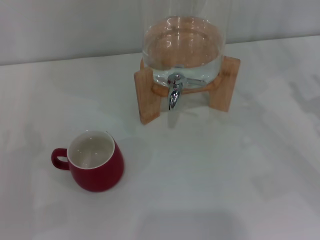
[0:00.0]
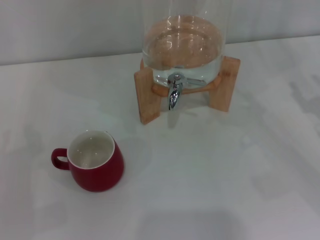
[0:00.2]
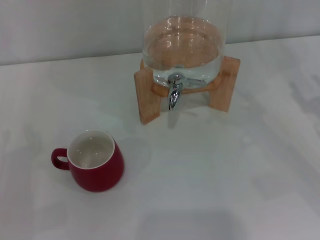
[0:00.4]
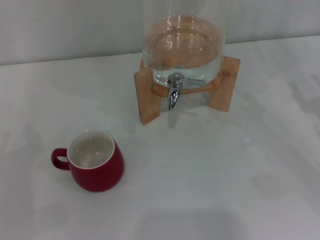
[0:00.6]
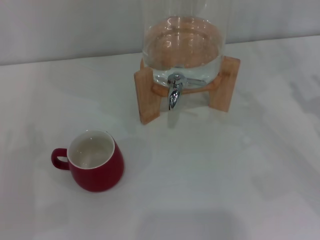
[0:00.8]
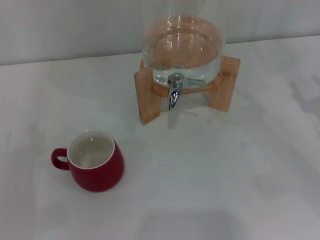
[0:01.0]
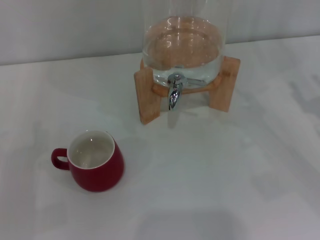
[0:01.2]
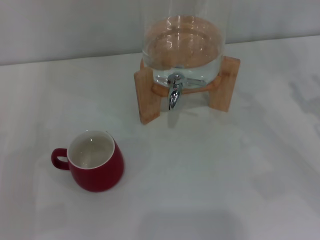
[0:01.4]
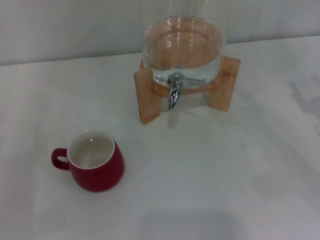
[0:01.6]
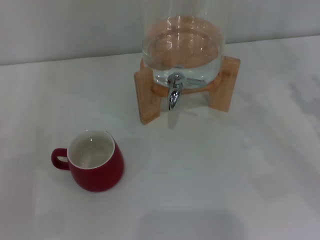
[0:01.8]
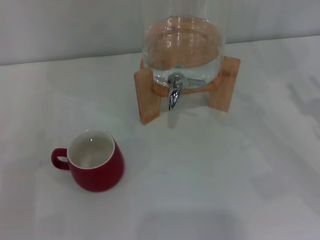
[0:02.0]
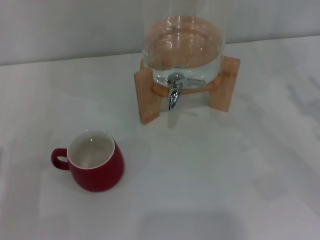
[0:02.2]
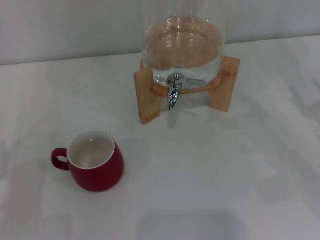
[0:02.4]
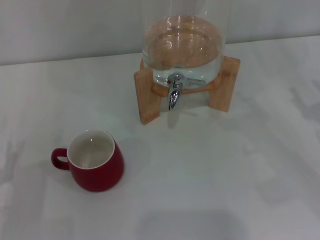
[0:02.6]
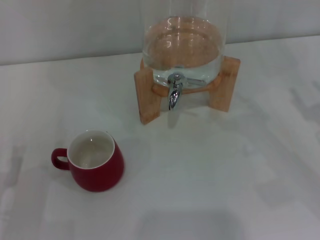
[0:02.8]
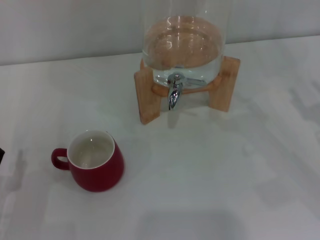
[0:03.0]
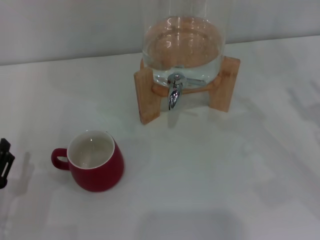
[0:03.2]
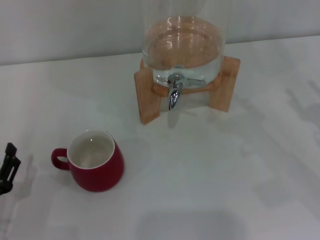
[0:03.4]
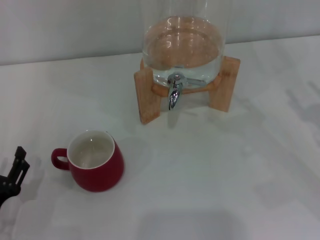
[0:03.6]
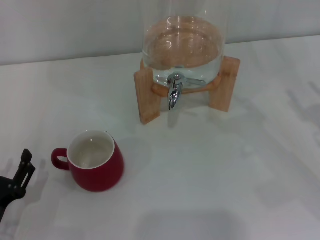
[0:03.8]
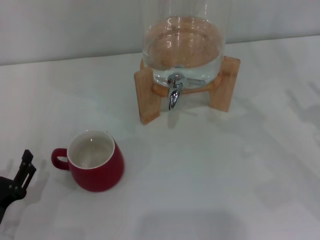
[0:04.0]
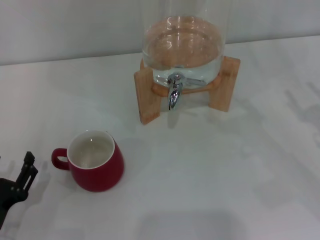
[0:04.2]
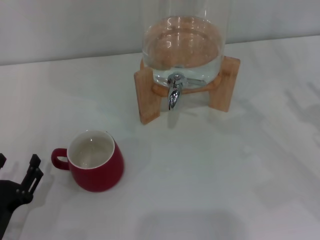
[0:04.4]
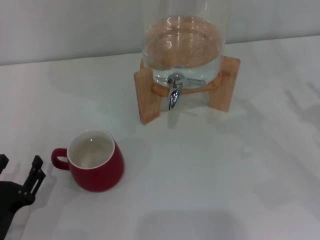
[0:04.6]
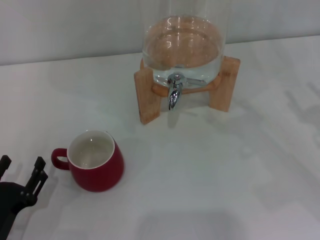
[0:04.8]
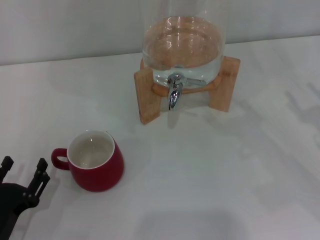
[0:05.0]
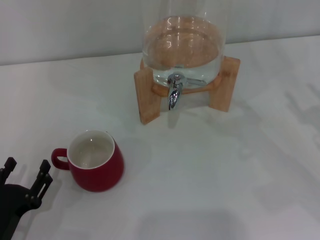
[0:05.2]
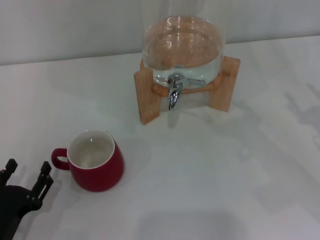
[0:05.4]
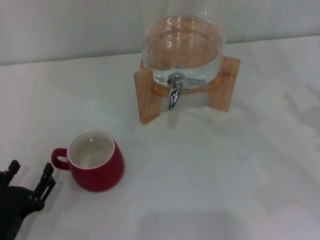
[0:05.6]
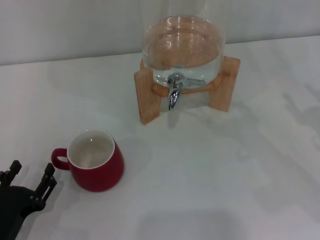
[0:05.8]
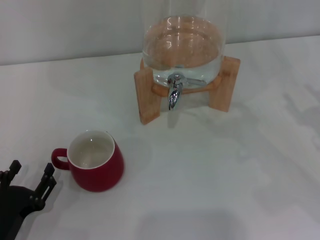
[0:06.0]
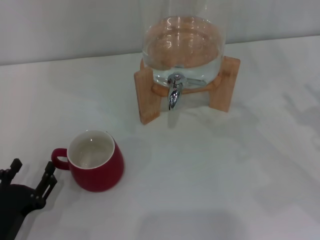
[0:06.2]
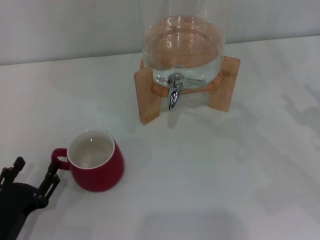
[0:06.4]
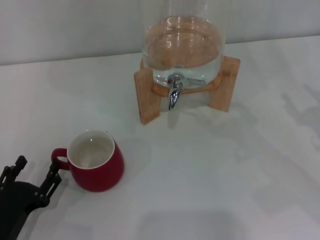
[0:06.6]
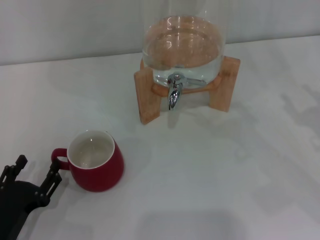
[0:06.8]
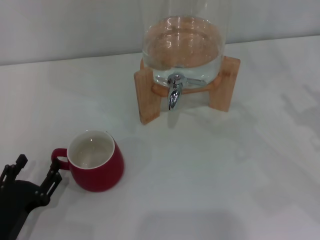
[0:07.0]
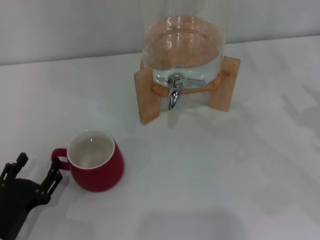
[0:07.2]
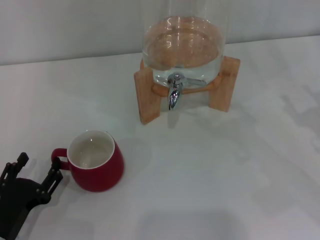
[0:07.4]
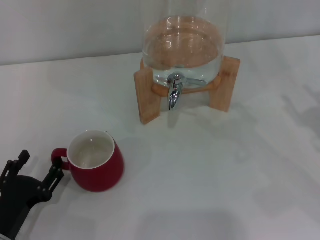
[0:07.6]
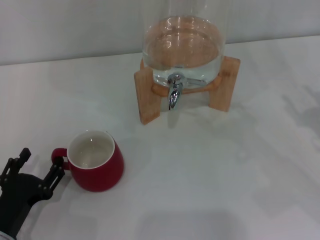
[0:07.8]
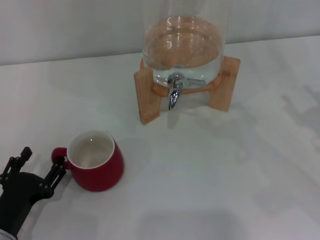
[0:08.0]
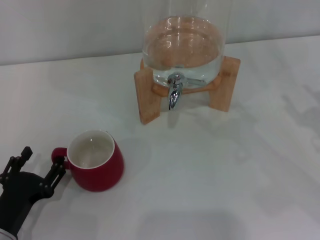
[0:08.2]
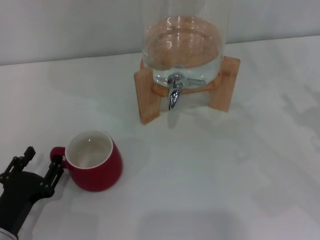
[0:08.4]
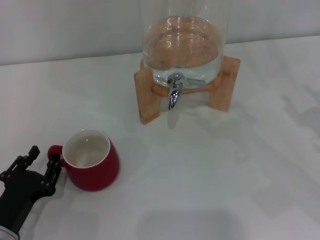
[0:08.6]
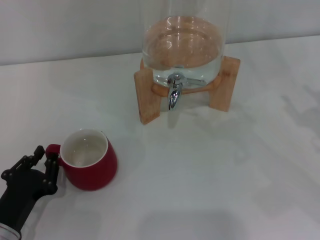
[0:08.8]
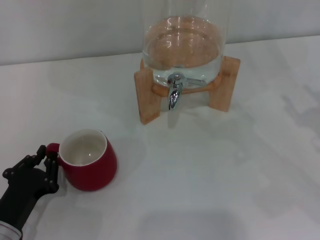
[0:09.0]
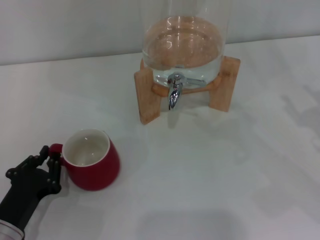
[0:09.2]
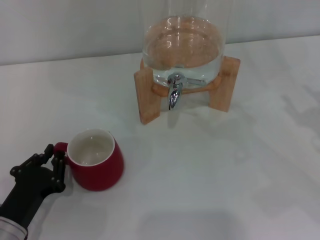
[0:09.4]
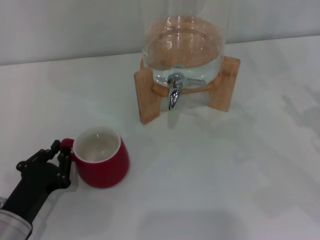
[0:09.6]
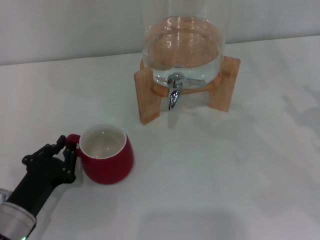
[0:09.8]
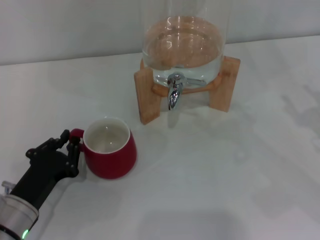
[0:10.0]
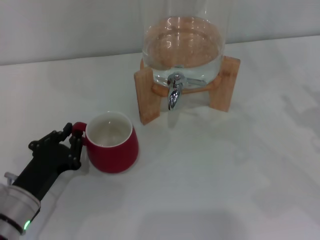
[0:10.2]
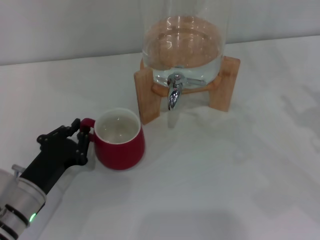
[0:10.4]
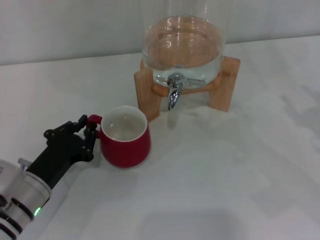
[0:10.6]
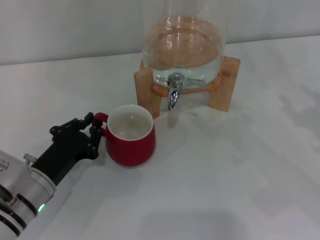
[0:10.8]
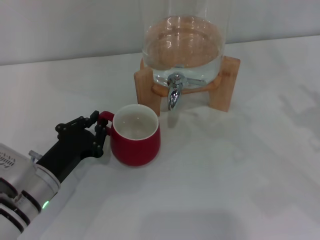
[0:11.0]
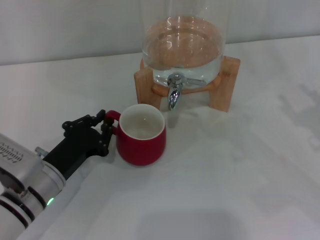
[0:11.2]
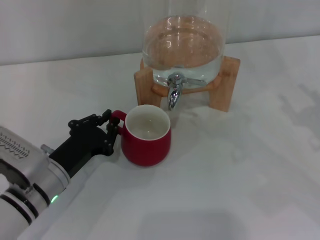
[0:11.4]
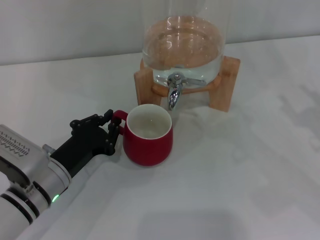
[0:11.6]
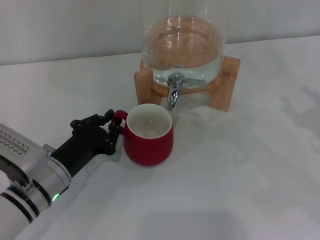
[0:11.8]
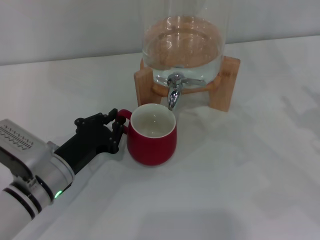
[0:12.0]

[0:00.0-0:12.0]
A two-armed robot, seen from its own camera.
Task of the whole recording: the left gripper pick up the red cup and place it horizontally under the faucet, the right gripper turn on the faucet to fill the cup, and then turn off the faucet.
0:03.0 to 0:07.6: The grippers stay close to where they were, moving slightly.
0:07.6 to 0:09.0: The left gripper closes its fingers.
0:09.0 to 0:10.4: The left gripper moves approximately 5 cm.
0:10.4 to 0:12.0: The left gripper moves about 5 cm.

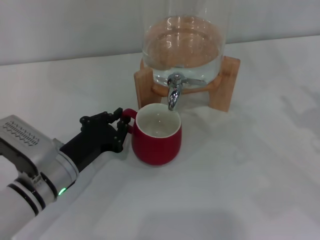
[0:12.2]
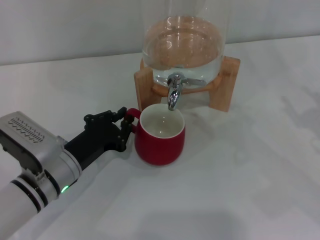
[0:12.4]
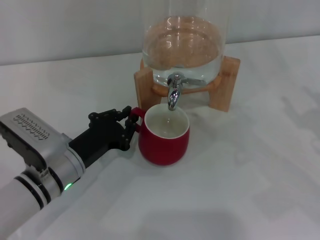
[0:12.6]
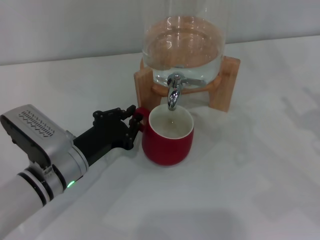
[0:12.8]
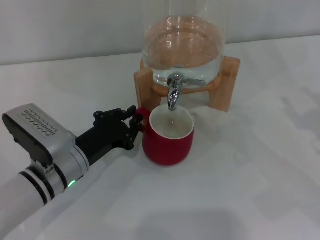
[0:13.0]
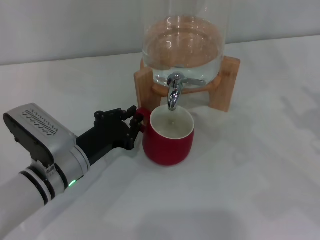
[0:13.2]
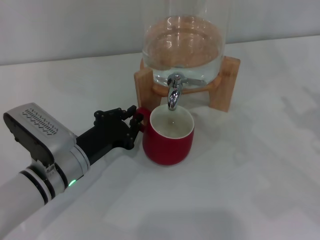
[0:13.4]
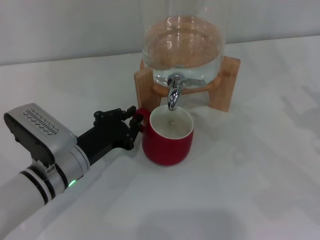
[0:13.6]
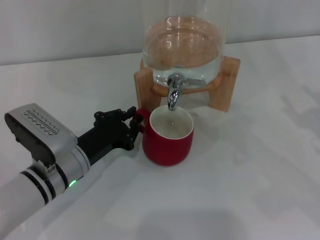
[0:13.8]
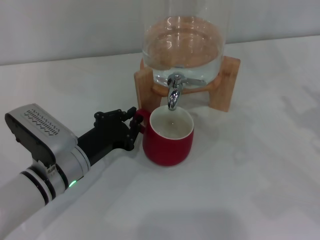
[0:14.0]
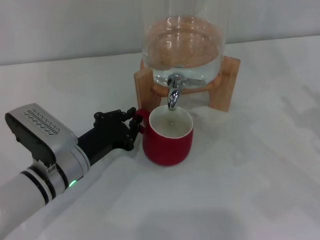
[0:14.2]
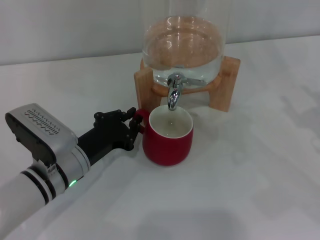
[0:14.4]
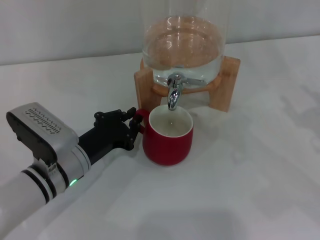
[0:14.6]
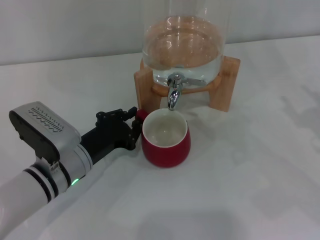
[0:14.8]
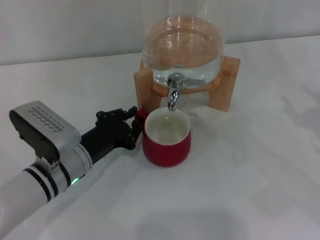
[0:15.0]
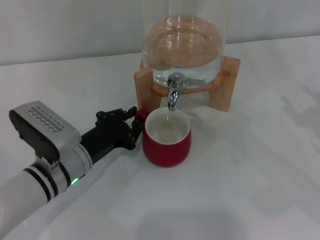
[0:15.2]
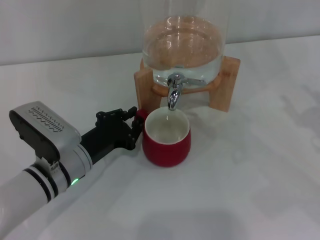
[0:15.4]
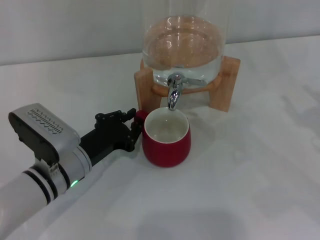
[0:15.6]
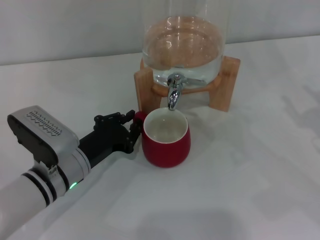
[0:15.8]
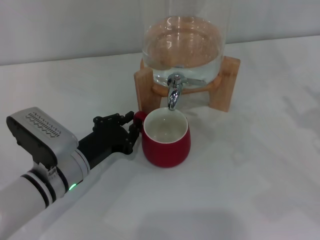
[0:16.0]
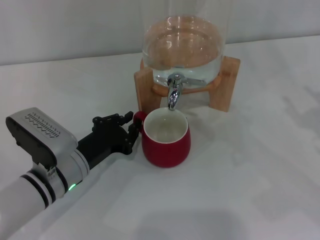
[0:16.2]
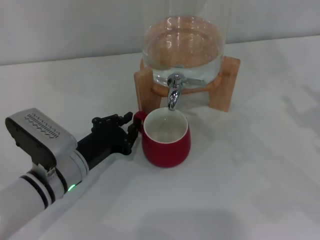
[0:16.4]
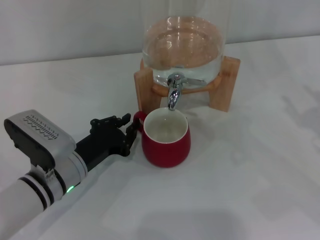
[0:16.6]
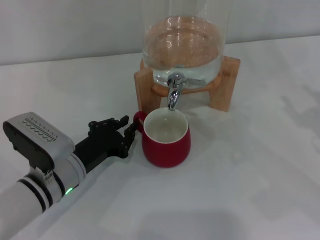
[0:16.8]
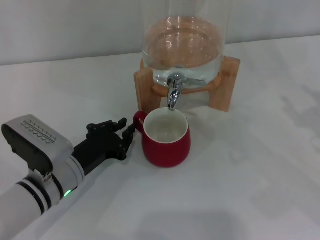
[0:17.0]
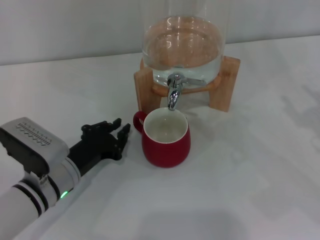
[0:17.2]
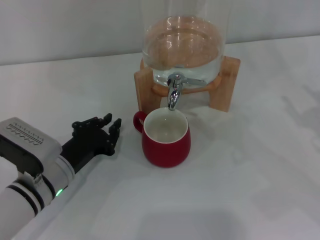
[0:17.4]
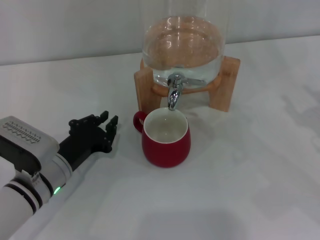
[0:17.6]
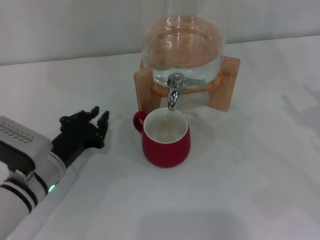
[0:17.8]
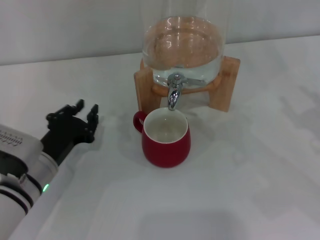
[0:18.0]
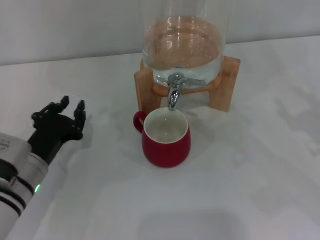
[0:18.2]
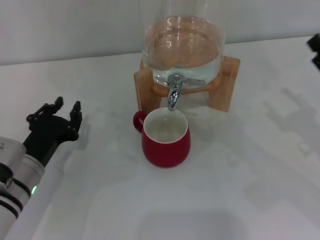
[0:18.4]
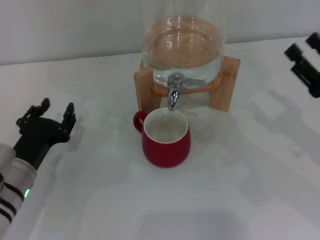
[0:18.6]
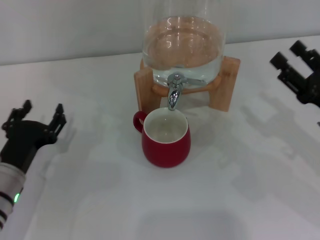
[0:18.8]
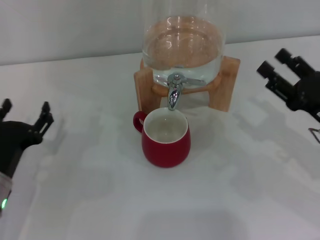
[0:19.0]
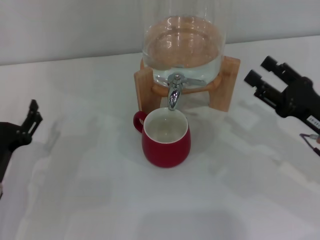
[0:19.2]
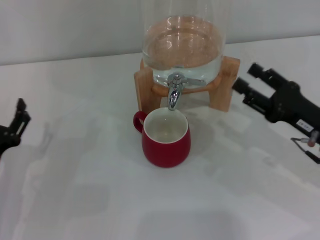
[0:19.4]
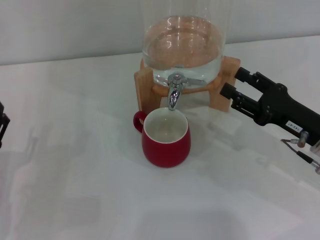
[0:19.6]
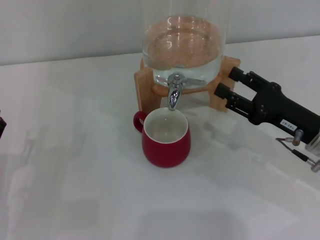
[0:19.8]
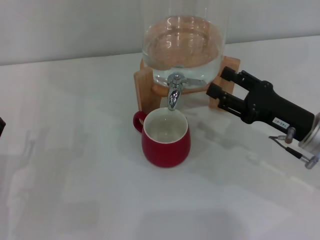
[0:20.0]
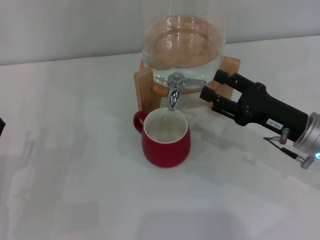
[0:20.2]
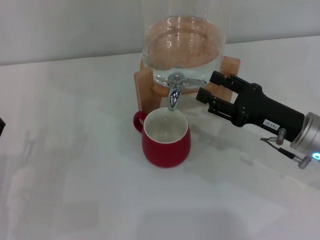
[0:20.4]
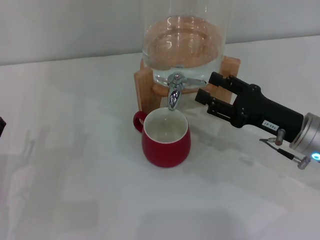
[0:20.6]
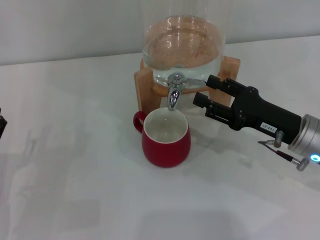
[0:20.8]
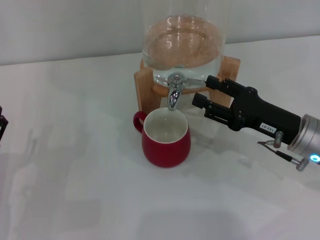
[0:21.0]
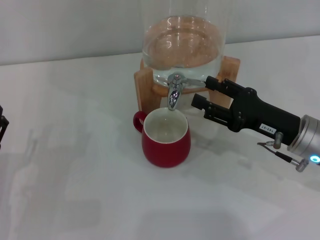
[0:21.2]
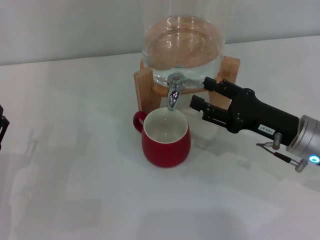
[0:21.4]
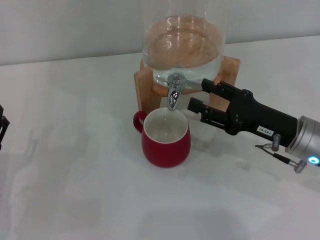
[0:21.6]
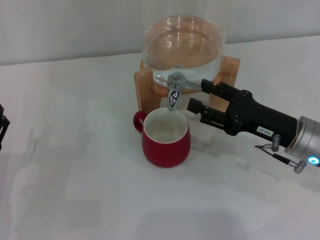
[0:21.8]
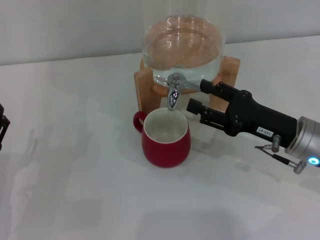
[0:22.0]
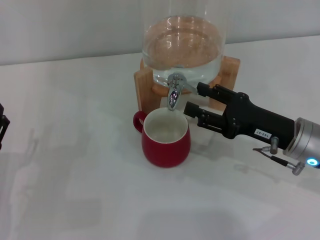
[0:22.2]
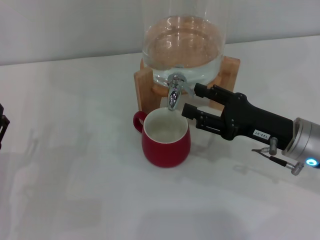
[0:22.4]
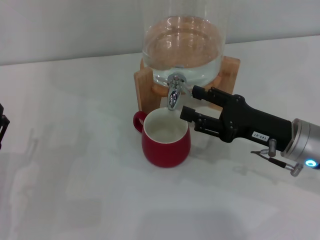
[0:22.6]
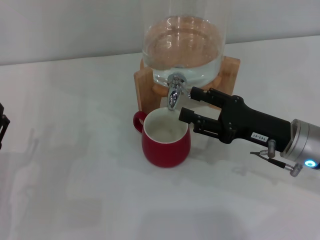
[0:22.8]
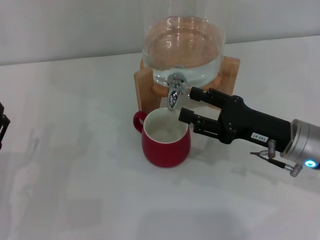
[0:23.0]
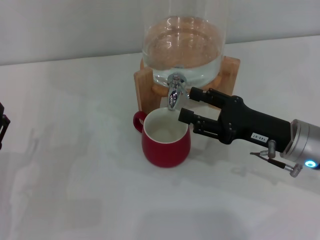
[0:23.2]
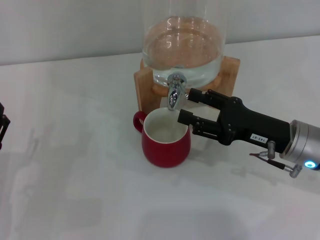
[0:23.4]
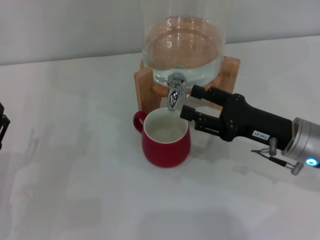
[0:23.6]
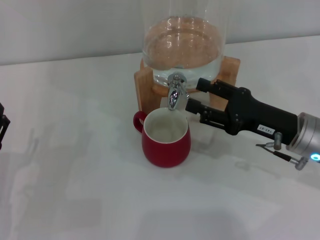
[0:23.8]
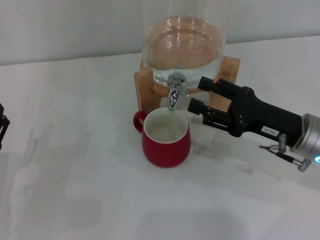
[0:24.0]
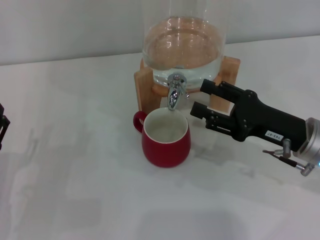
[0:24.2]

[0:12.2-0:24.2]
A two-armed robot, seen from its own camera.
Task of the whole recording: the left gripper pick up the red cup and place it horizontally under the faucet, the right gripper turn on the faucet to fill the cup, and then turn off the faucet.
Step, 0:12.2 to 0:17.6: Move the cup beneath the water dispenser nozzle with the left gripper.
0:12.2 to 0:13.8: The grippers stay close to where they were, moving slightly.
0:13.8 to 0:16.6: Both grippers stay about where they are.
0:18.2 to 0:19.8: The left gripper heads to the left and backward, covering roughly 10 cm, and opens. Meanwhile the right gripper shifts about 5 cm to the left.
0:19.8 to 0:24.2: The grippers make only small movements.
